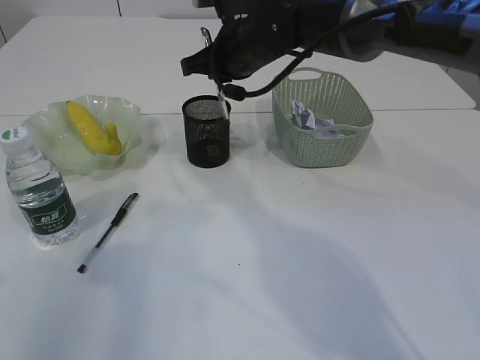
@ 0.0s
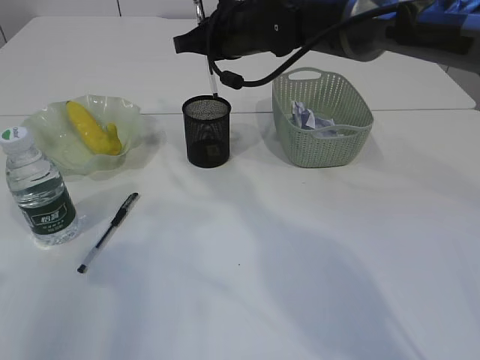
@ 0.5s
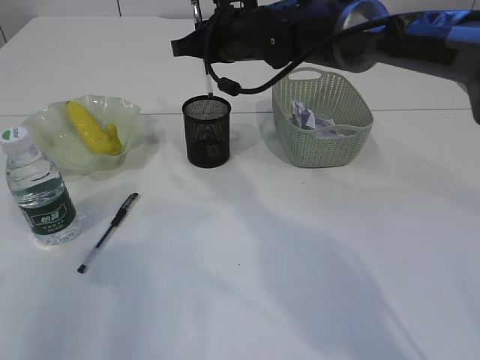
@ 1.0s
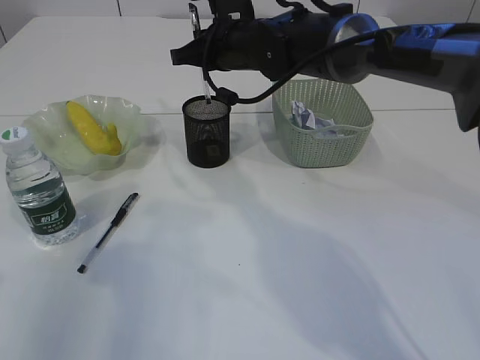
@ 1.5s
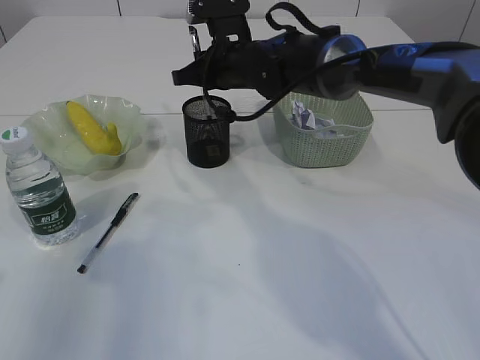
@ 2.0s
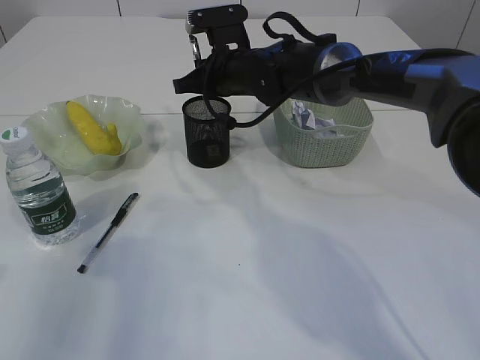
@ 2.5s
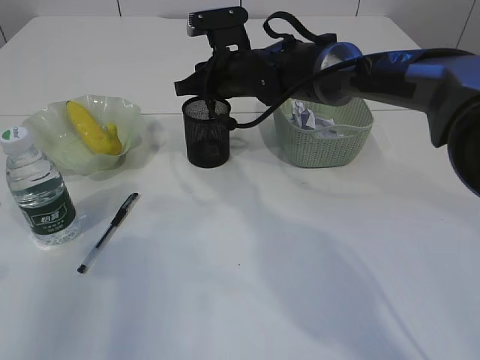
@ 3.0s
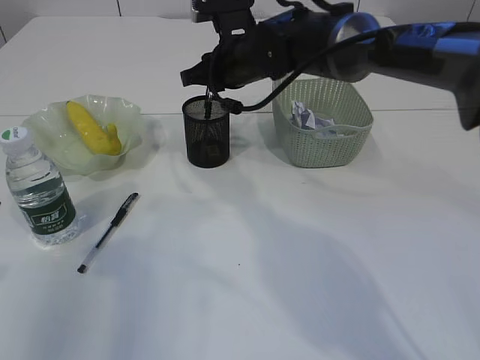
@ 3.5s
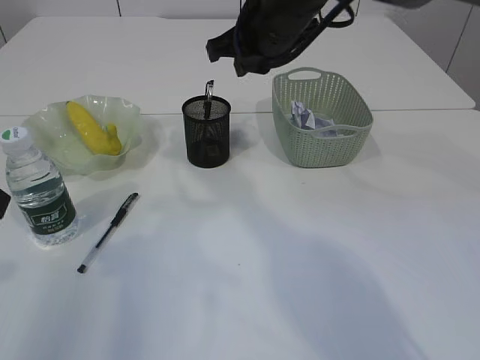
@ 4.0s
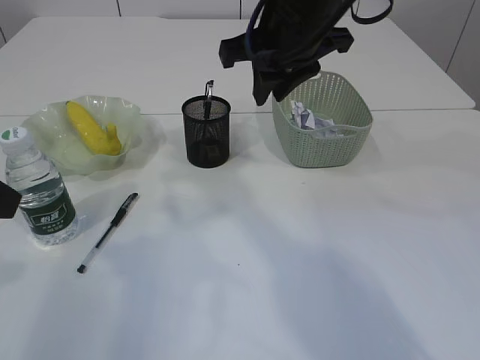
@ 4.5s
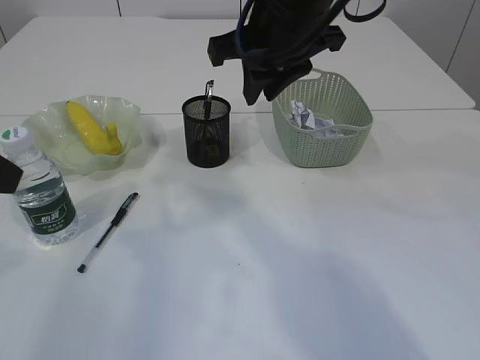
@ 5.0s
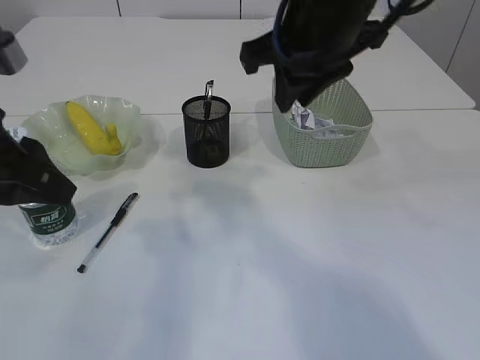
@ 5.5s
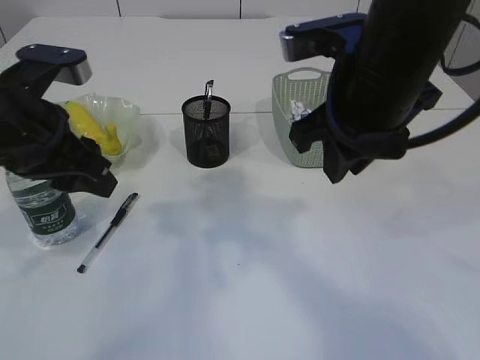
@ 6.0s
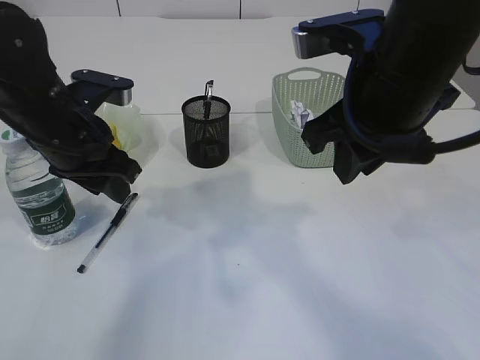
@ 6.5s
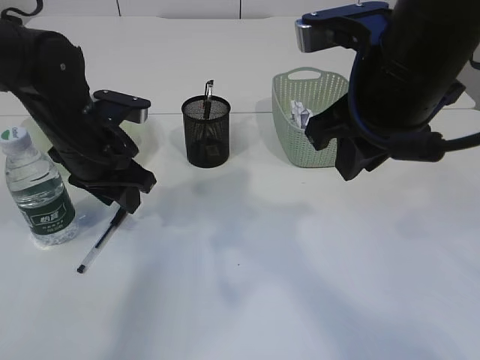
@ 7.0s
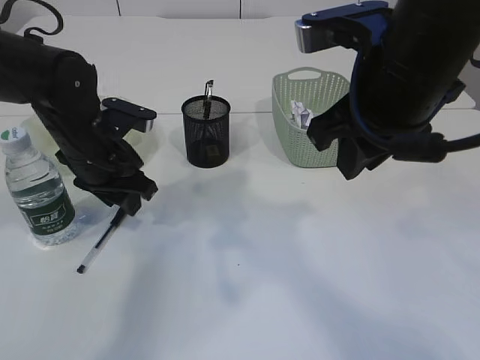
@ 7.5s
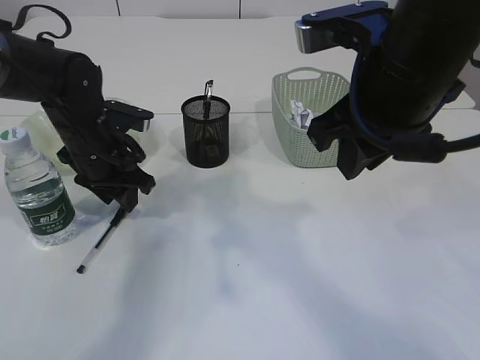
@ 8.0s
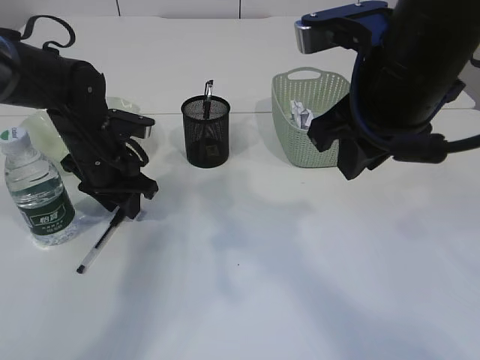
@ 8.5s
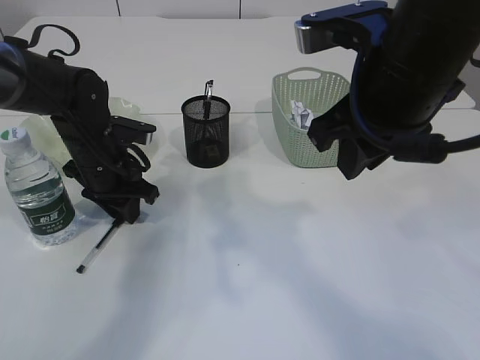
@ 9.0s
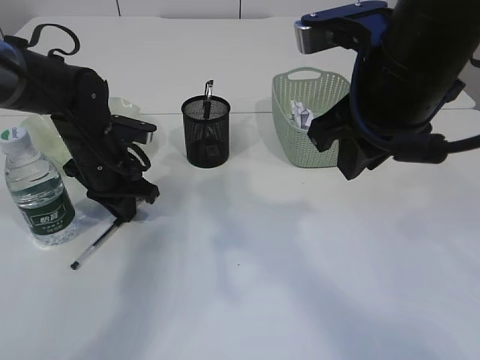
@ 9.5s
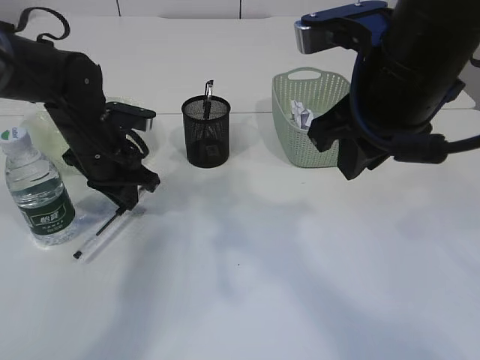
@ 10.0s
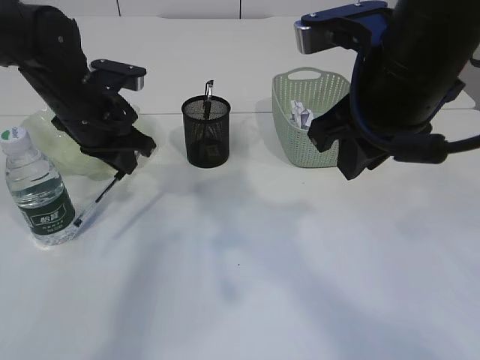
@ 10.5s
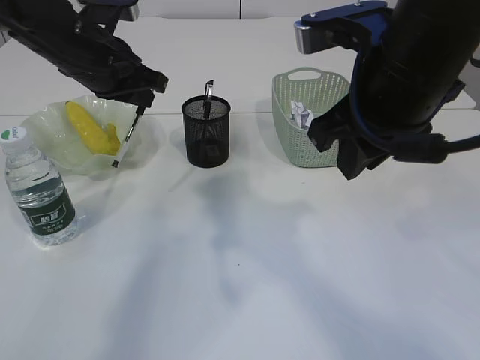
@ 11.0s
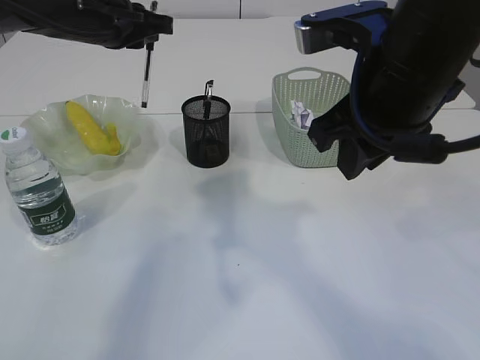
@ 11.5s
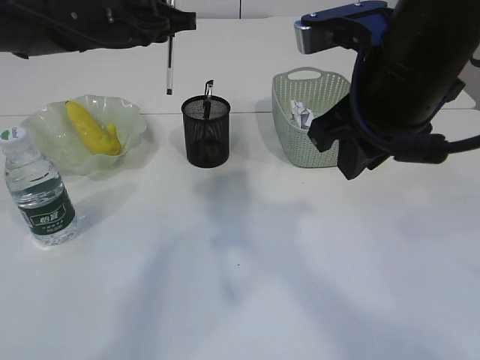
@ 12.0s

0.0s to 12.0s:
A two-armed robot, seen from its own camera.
Step, 0.0s to 3.0s: Place the pen into the pen holder.
Step, 3.5s to 10.5s: Pick up the pen with left arm.
0.0s to 2.0s: The grippers make only small movements.
2.0s to 4.0s: The right gripper travels upward and backward by some 10 cm.
4.0s to 6.0s: The left gripper goes about 10 cm forward and to the right, while the right gripper moves backward, approximately 15 cm.
6.0s to 8.0s: The left gripper travels forward and downward by approximately 15 cm.
8.0s to 10.0s: The left gripper closes.
10.0s to 12.0s: The left gripper moves upward, roughly 15 cm.

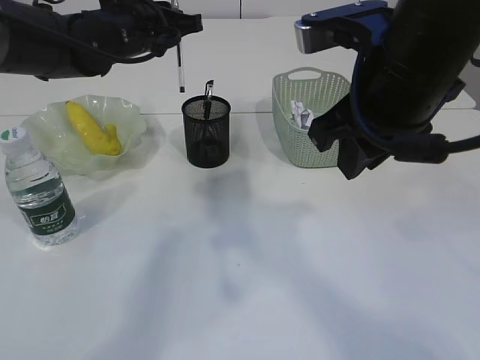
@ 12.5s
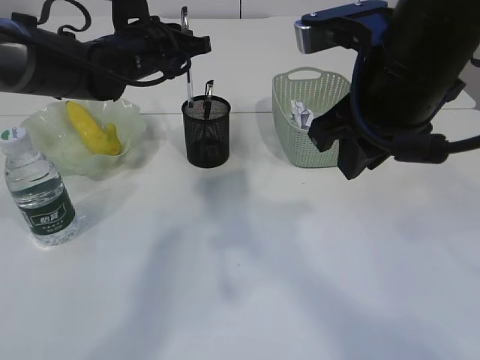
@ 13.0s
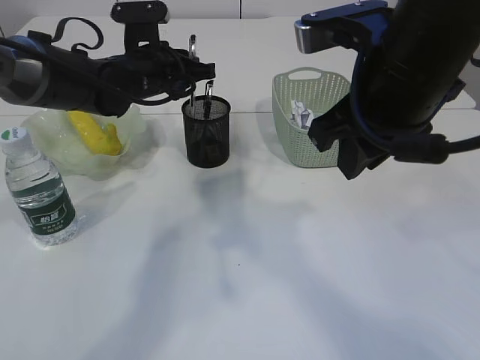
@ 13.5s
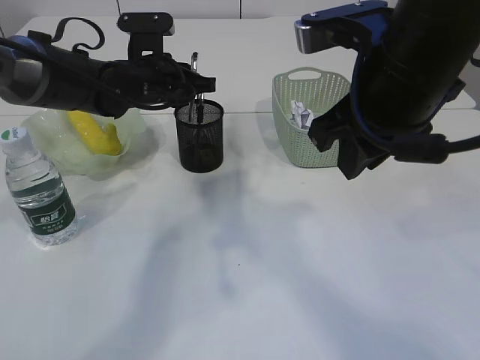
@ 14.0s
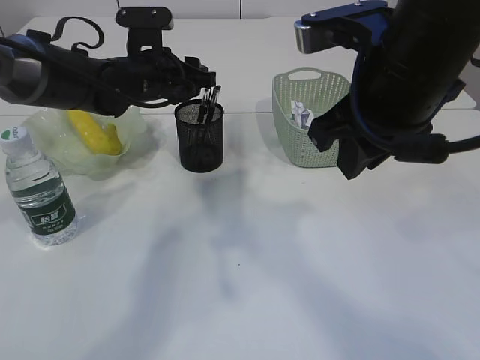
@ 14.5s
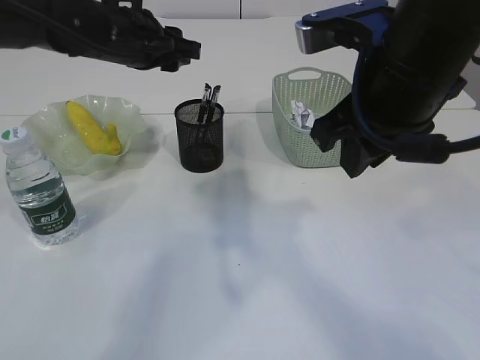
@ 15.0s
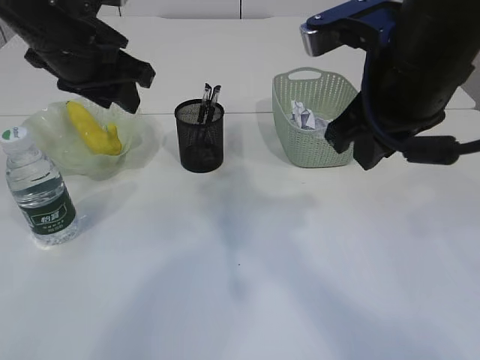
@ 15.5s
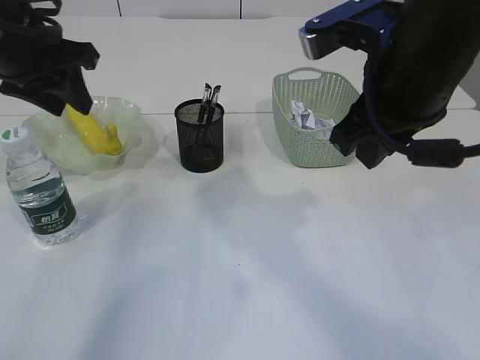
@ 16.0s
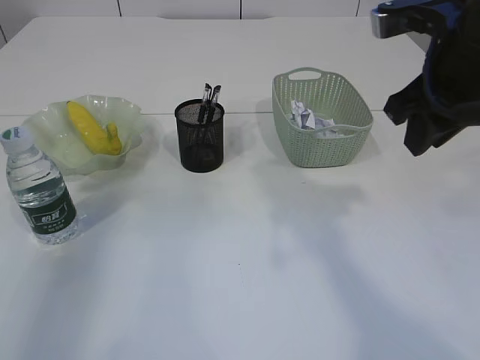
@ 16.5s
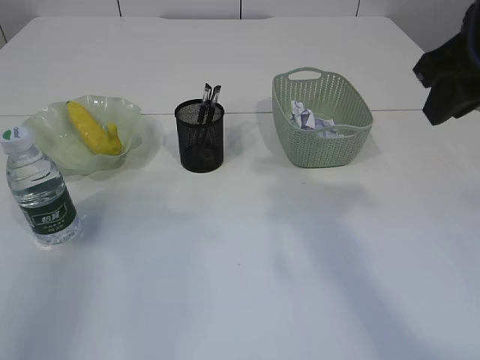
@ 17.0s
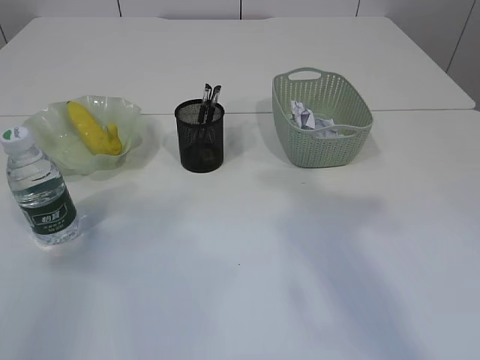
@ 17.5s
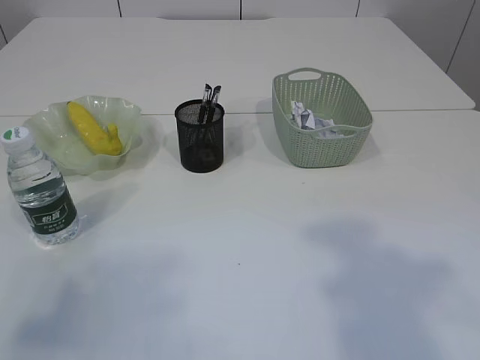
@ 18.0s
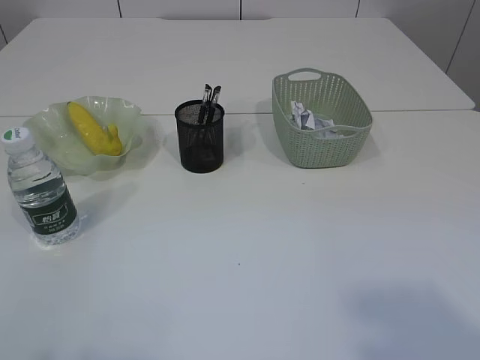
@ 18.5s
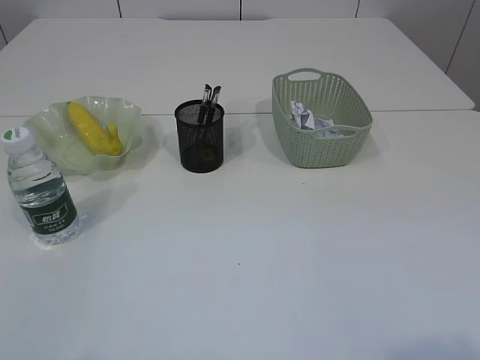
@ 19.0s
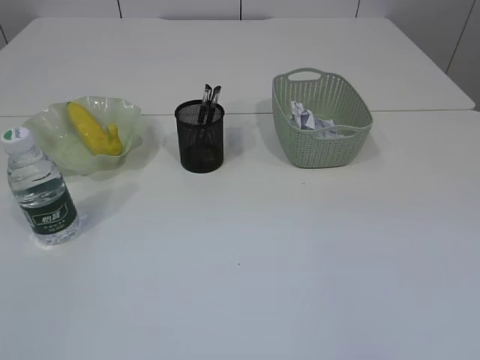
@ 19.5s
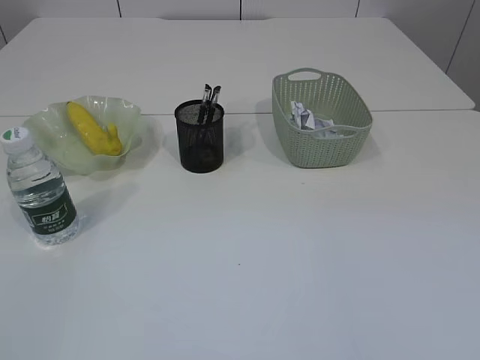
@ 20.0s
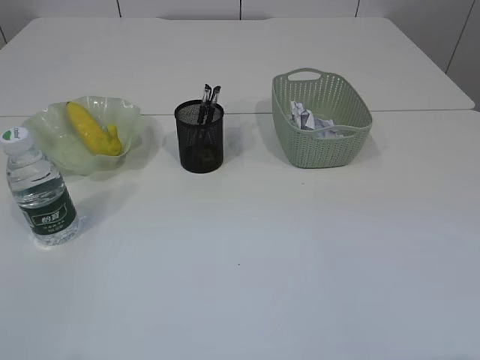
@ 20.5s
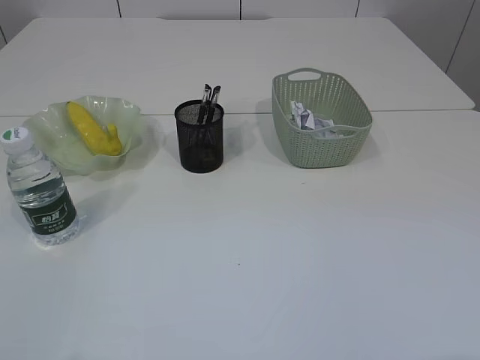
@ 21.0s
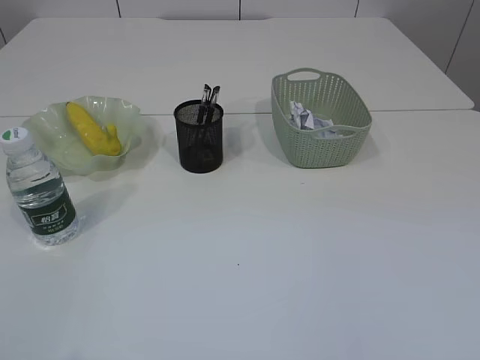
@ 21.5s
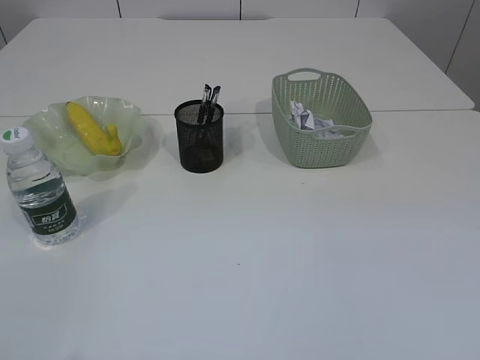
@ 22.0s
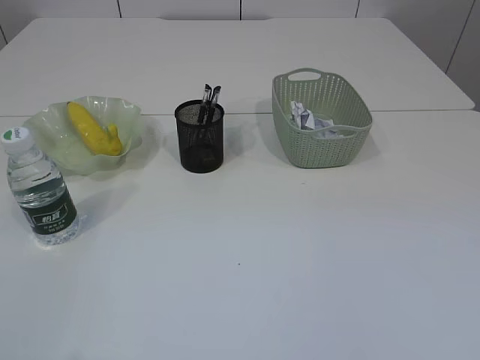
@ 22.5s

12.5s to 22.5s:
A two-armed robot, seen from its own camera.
Step, 12.5s to 14.5s: Place the pen into the pen holder.
12.5s to 14.5s: The left gripper is displaced downward by some 5 cm, and opens its fingers.
14.5s to 16.5s: The right gripper moves to the right, about 5 cm, while the left gripper heads to the left, backward and upward, covering some 25 cm.
16.5s to 18.5s: The right gripper moves backward and upward, about 30 cm, while the left gripper moves backward, approximately 35 cm.

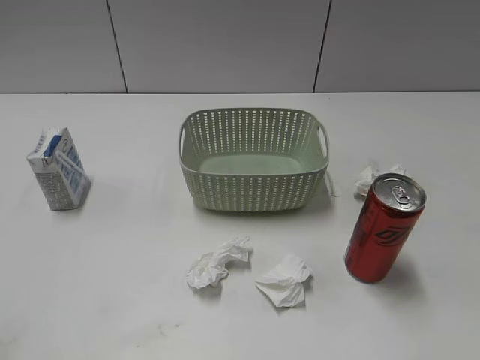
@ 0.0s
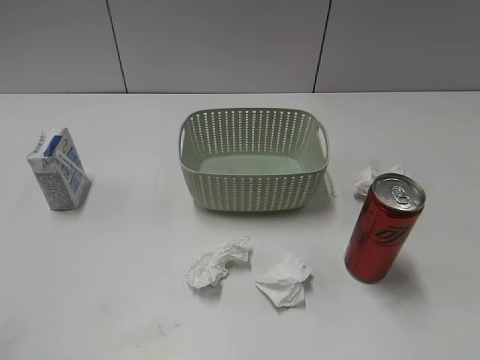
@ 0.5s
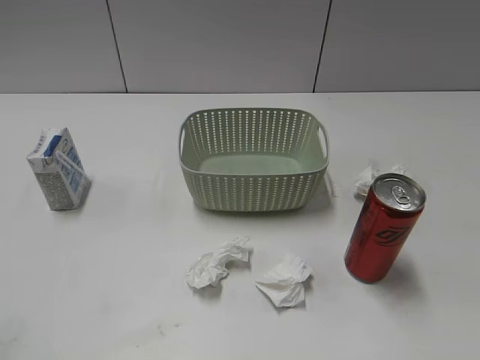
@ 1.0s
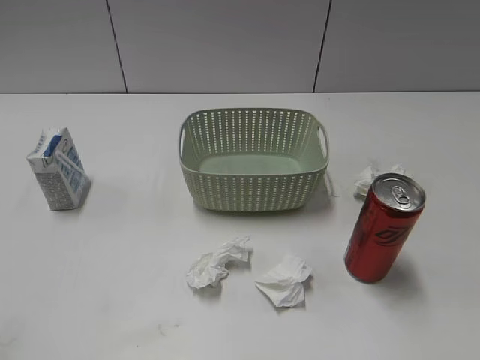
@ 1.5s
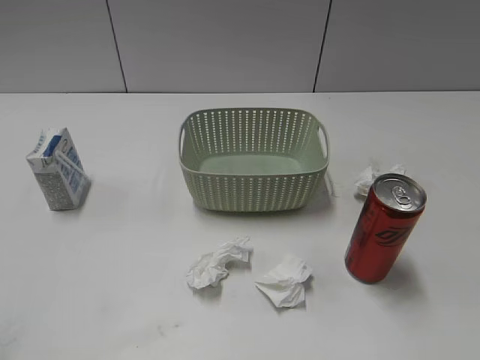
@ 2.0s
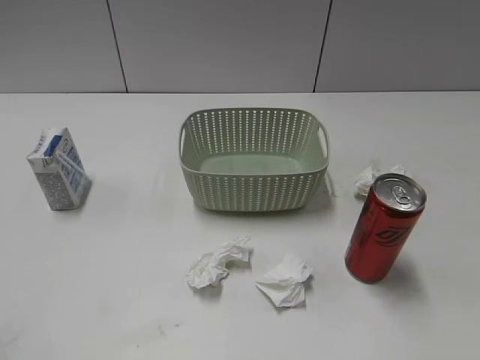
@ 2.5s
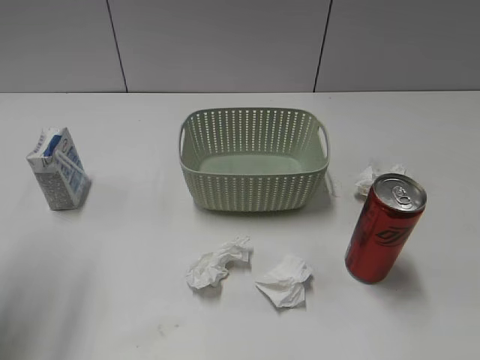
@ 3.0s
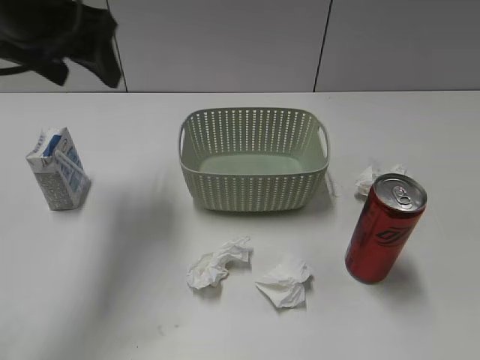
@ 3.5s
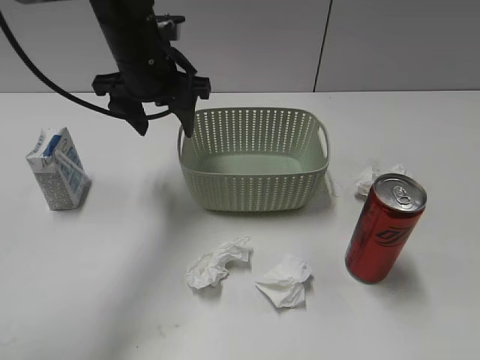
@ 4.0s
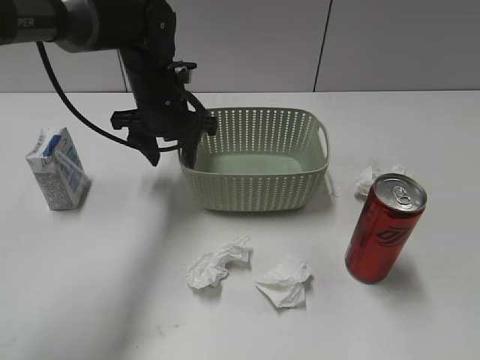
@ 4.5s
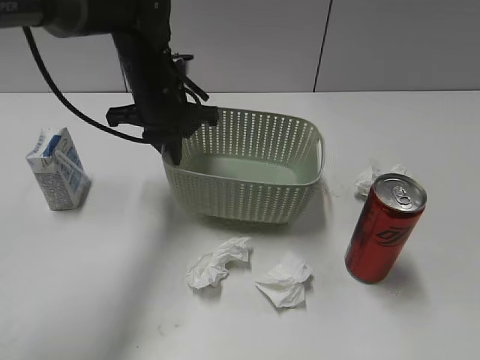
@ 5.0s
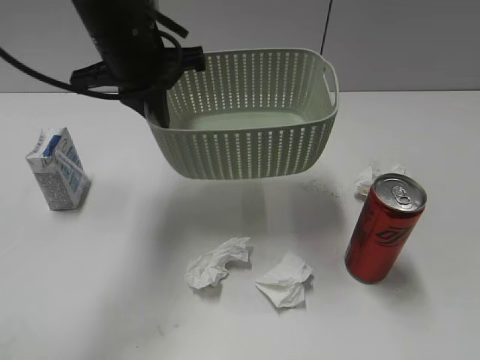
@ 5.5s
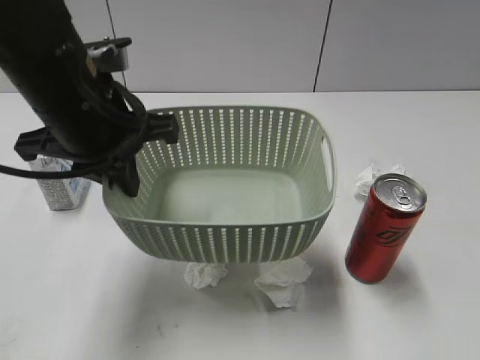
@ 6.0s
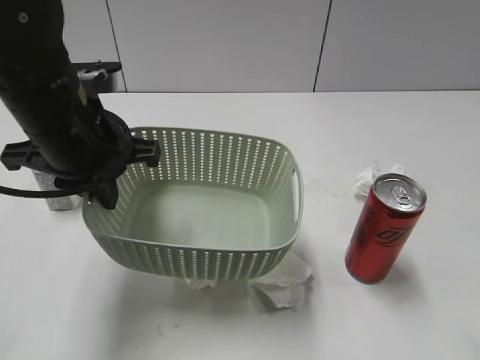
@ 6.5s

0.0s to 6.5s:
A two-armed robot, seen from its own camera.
Step, 3.5s to 4.5s: Grasp the basket with left gripper.
2.0s to 4.5s: The left gripper travels forward and to the right by about 50 cm.
4.5s to 6.5s: The right gripper shifts approximately 15 cm forward and upward; the left gripper shifts approximately 15 cm backward and upward, and closes its fingers.
